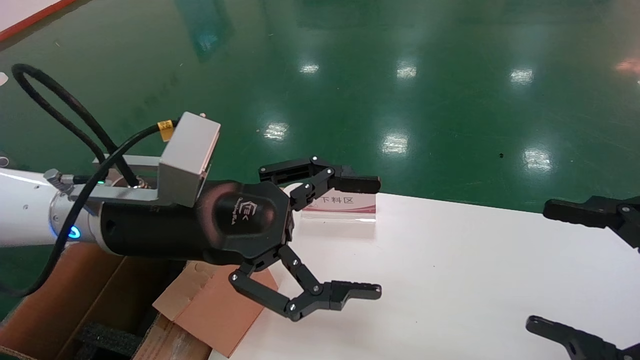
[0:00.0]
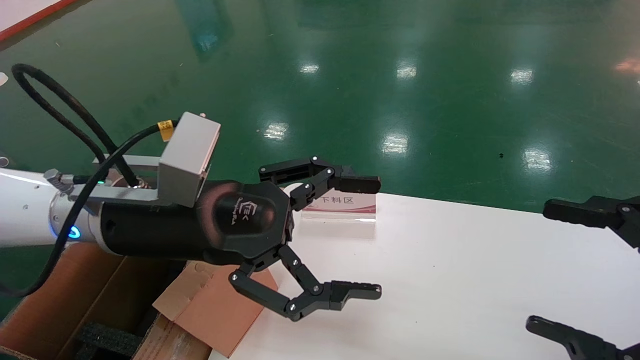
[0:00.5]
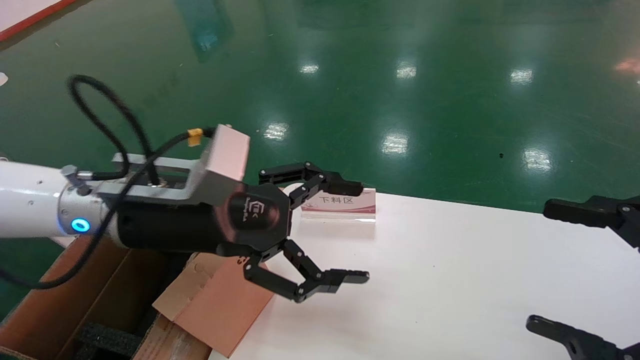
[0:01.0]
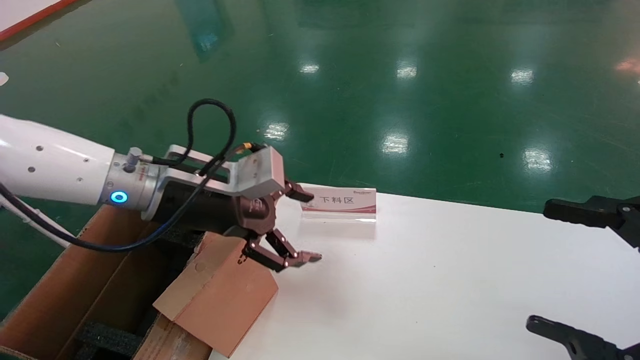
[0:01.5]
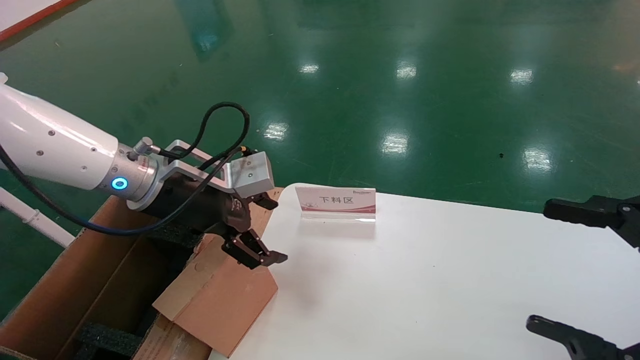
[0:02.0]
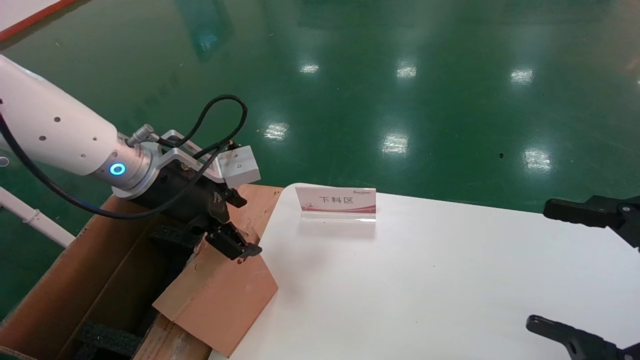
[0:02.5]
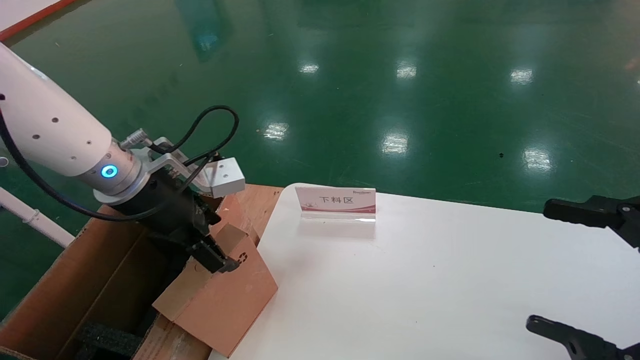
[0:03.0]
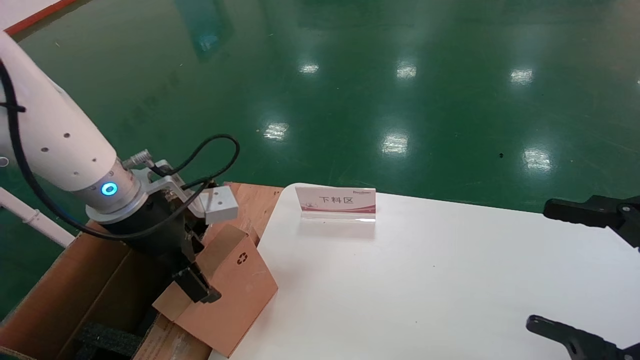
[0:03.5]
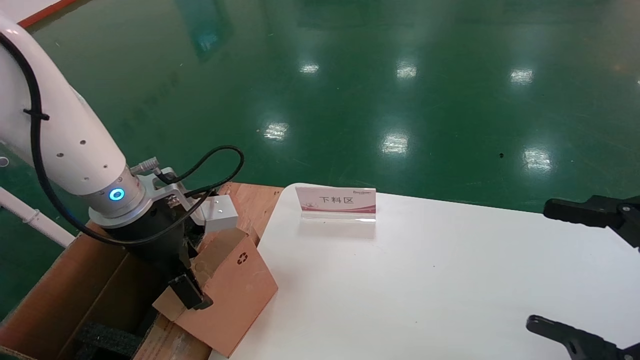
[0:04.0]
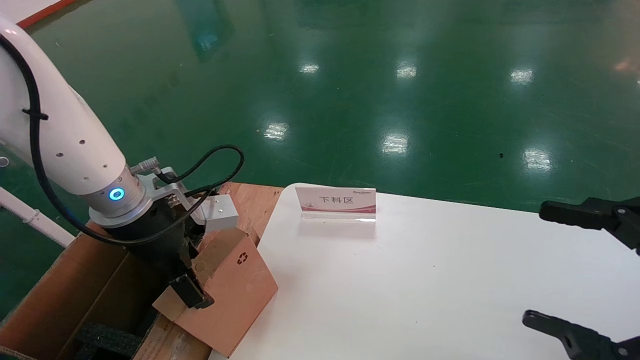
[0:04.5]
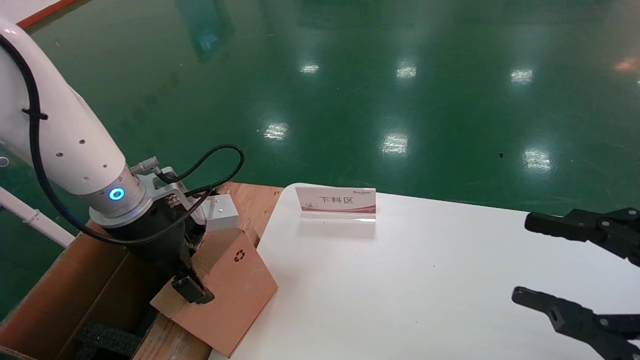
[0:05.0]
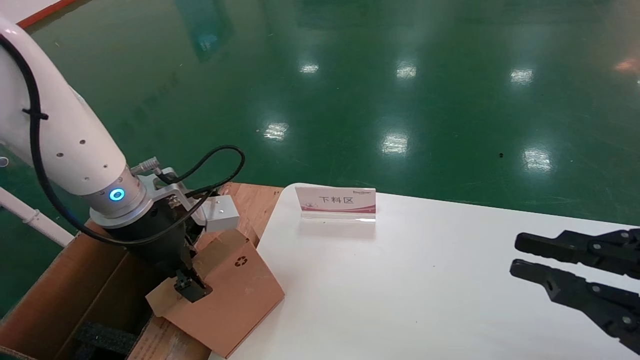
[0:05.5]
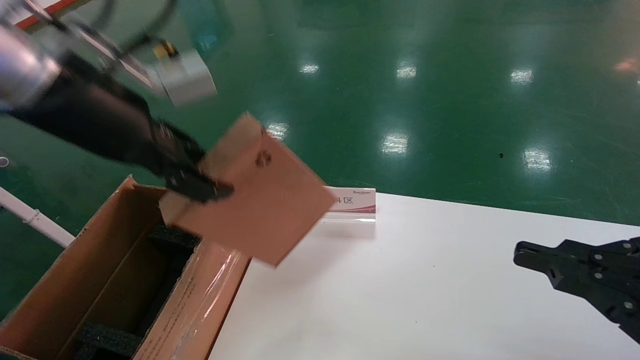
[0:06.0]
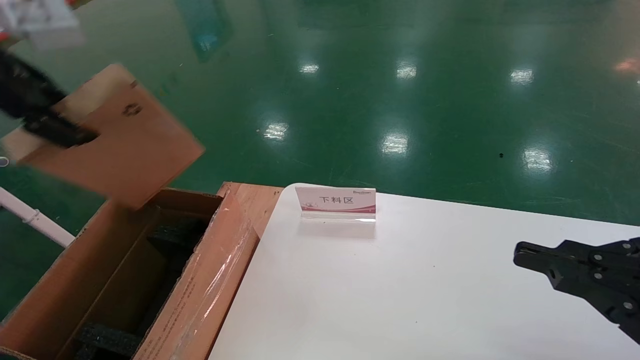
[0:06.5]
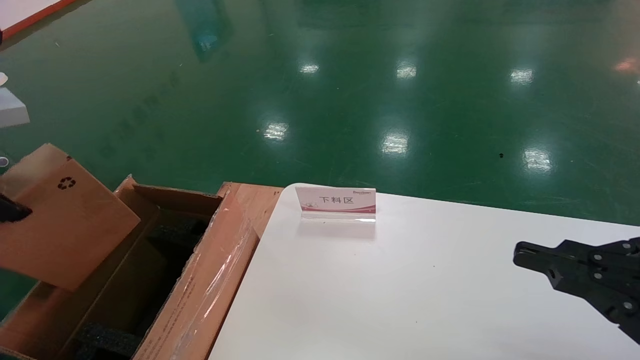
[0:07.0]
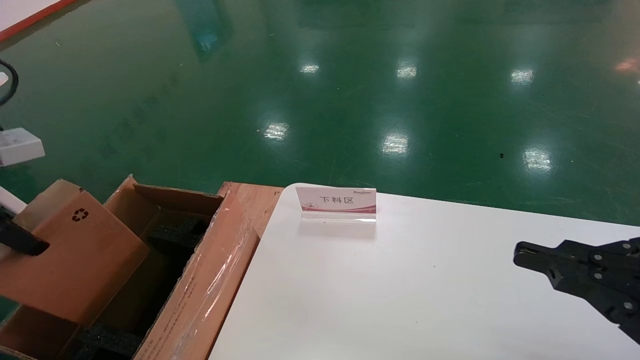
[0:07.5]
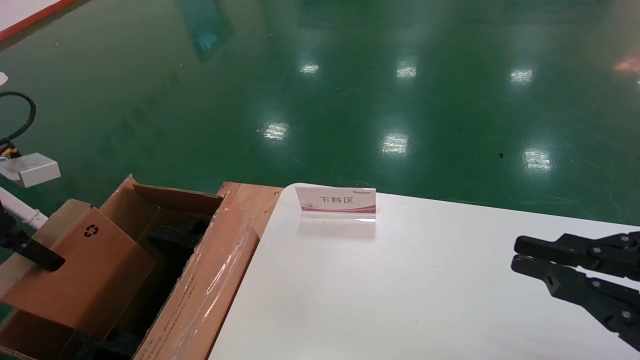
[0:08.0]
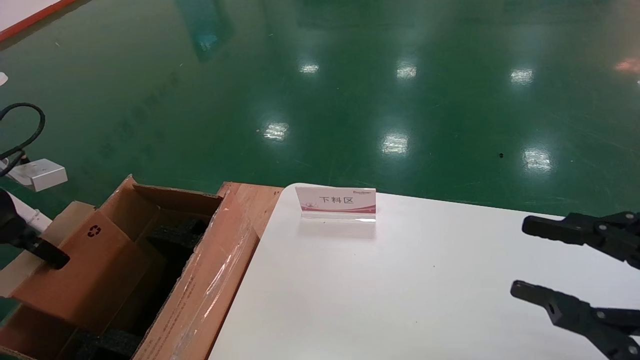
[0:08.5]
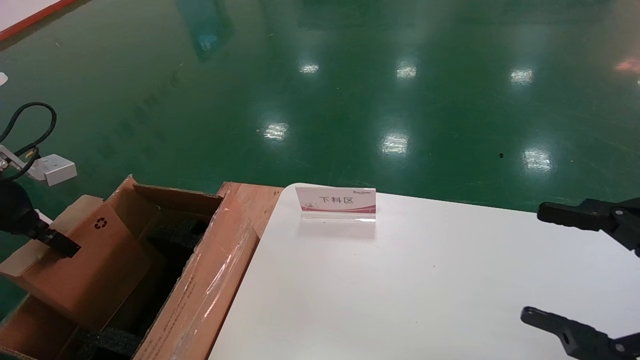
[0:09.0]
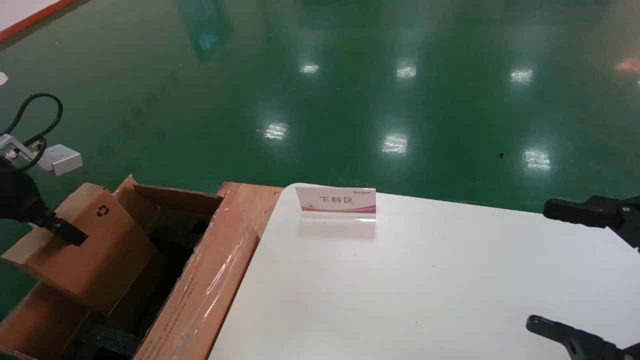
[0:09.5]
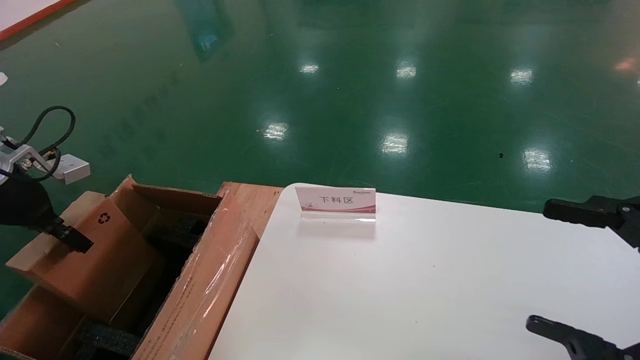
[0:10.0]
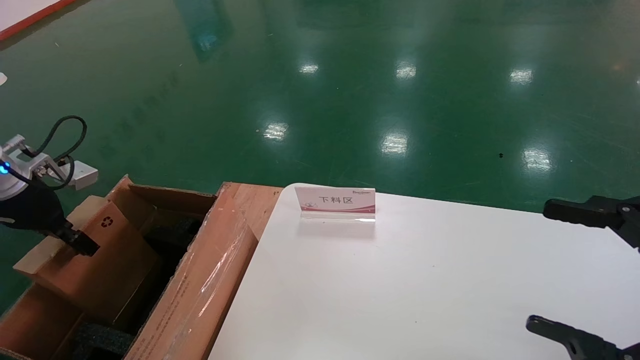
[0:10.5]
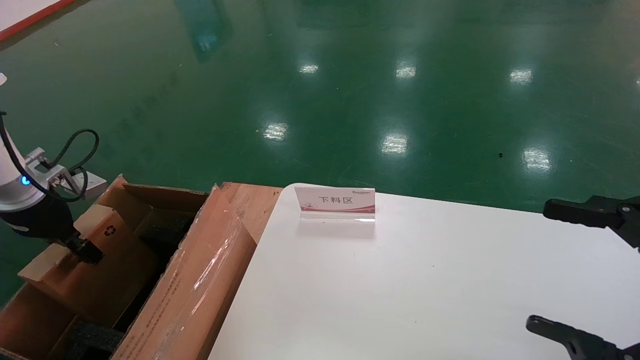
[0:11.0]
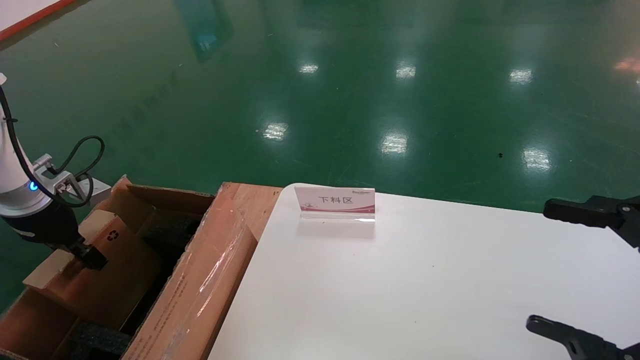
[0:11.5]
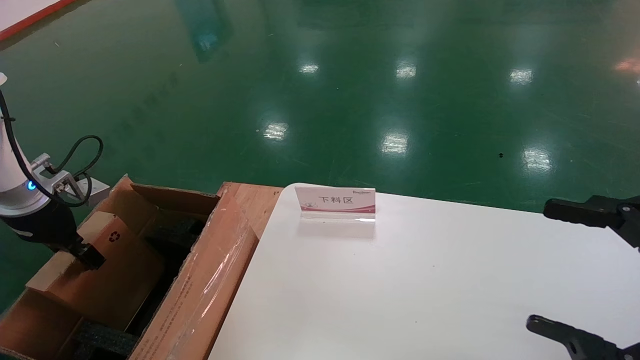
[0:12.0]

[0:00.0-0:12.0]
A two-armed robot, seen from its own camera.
Task of the whole recording: pick up the small cardboard box and load it into the large cardboard box.
Step, 0:01.0 to 0:05.0: Pick up the mouse and power cord box.
0:00.0 to 0:02.0: The left gripper is displaced forward by approximately 5 cm.
0:04.0 to 0:06.0: The right gripper closes its fingers. Meanwhile the left gripper moves upward, about 15 cm, and closes up.
0:06.0 to 0:08.0: The left gripper travels to the left and downward by some 25 cm.
0:08.0 to 0:10.0: The right gripper opens, while the left gripper is displaced forward by roughly 5 cm.
0:10.0 to 0:12.0: The left gripper ends up about 5 cm from where it was.

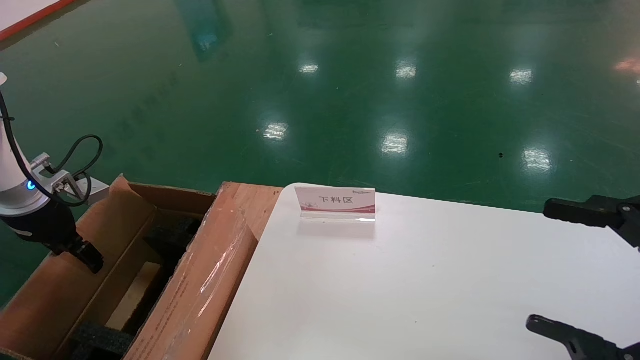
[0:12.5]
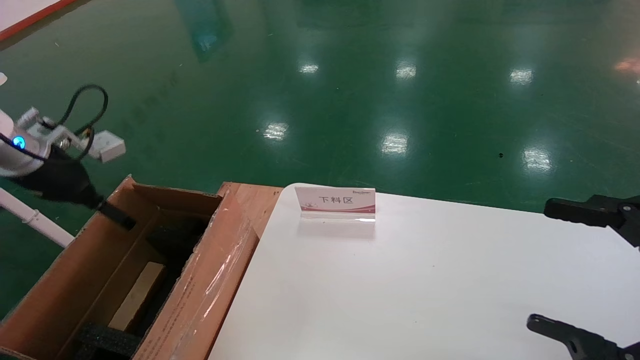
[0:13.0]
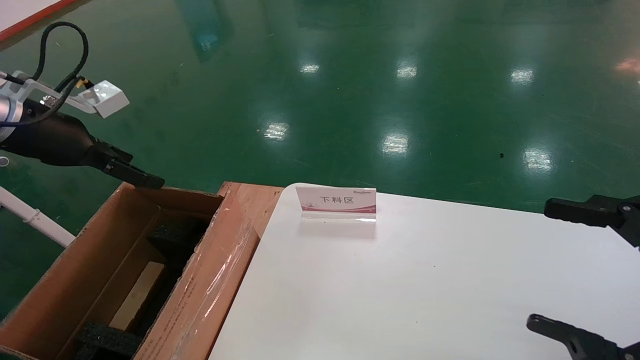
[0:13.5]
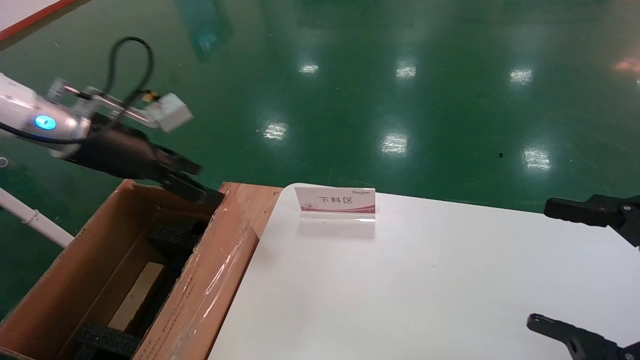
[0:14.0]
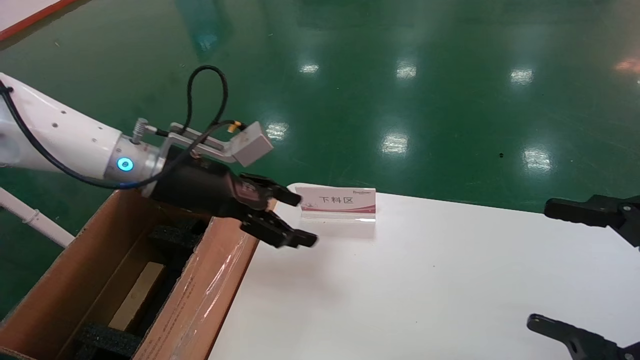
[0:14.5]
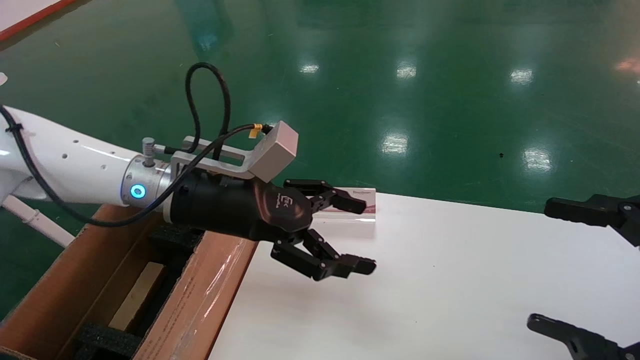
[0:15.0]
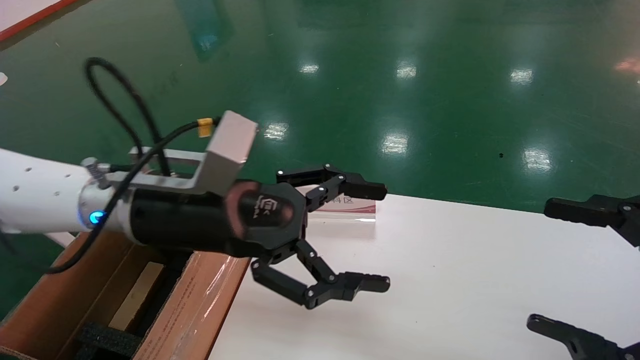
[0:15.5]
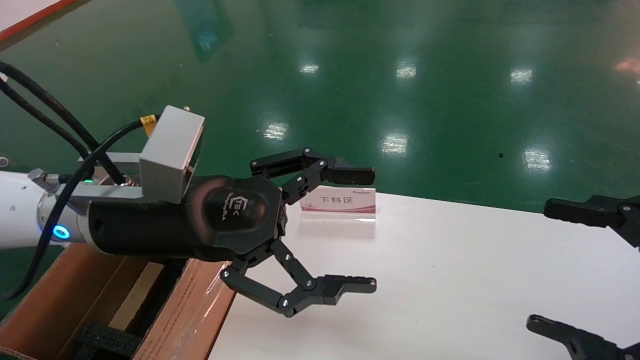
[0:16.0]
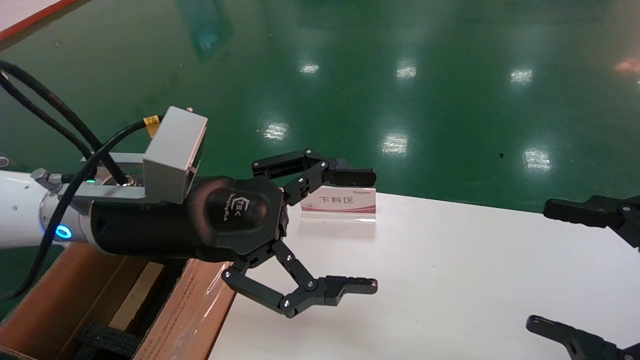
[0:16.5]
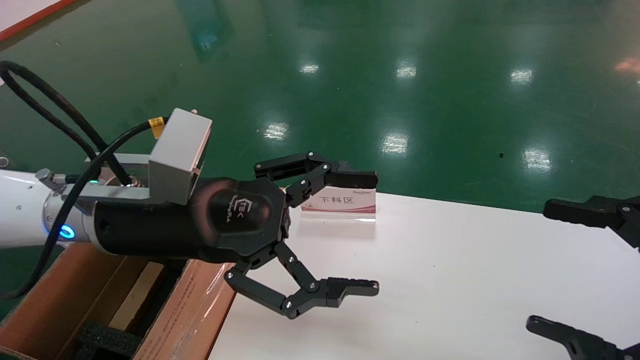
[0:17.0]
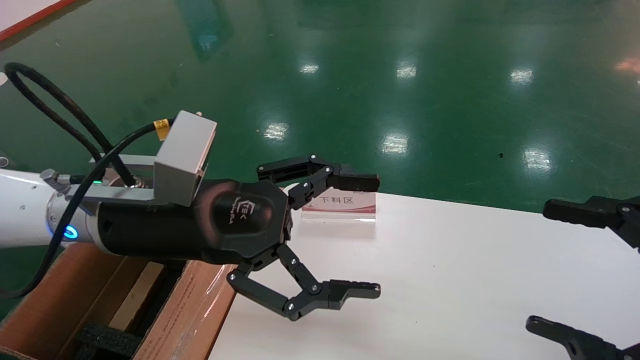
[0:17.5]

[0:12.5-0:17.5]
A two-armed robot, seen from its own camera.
Task of the whole recording: pick up the small cardboard box and load it into the large cardboard box.
0:12.5 to 0:15.0: The left gripper moves to the right, about 30 cm, and opens.
0:15.0 to 0:17.5: The left gripper travels backward by about 5 cm.
